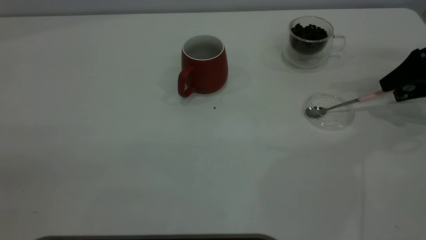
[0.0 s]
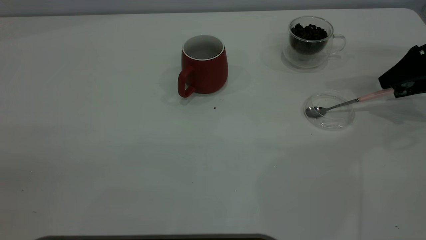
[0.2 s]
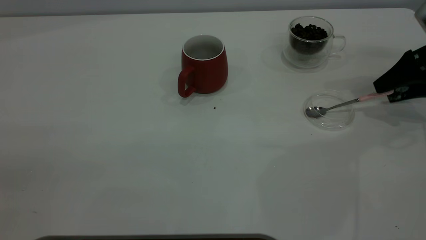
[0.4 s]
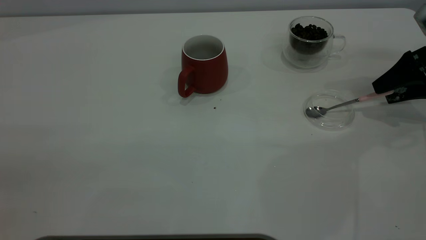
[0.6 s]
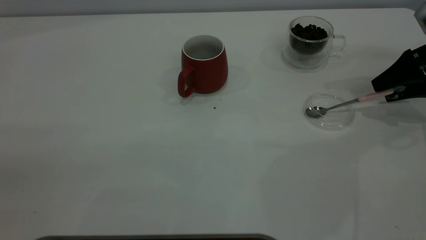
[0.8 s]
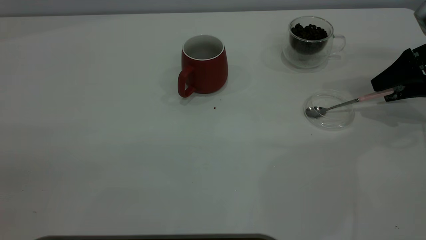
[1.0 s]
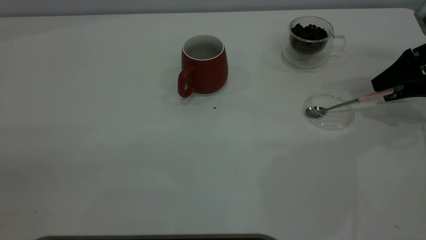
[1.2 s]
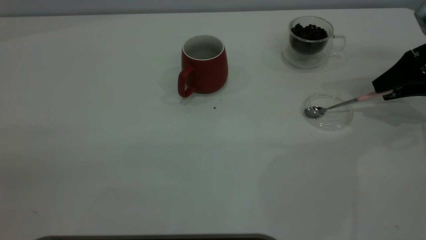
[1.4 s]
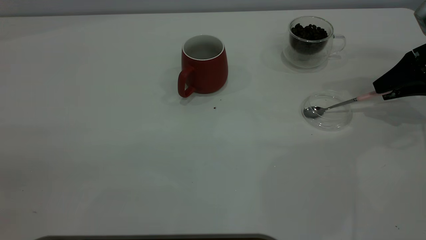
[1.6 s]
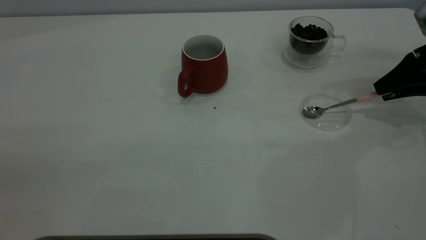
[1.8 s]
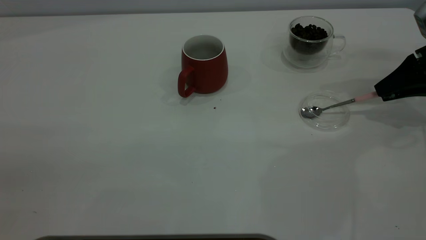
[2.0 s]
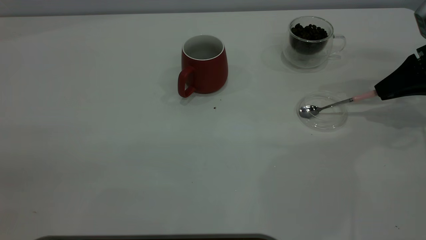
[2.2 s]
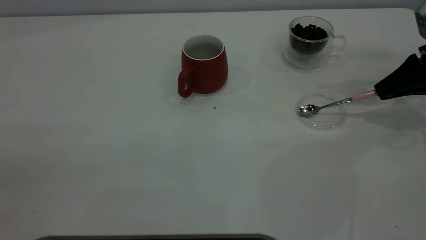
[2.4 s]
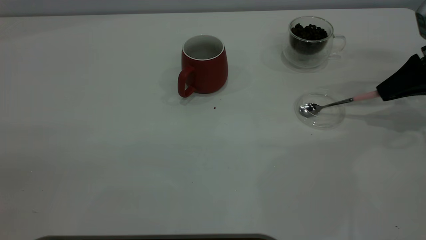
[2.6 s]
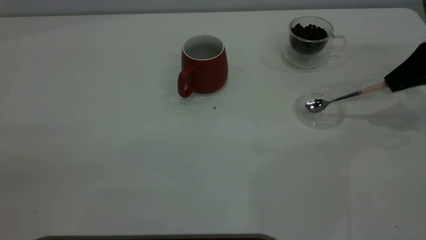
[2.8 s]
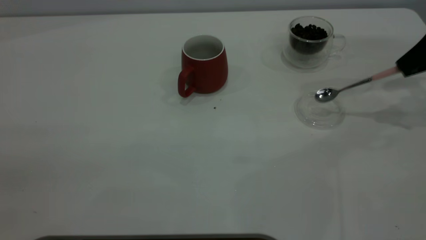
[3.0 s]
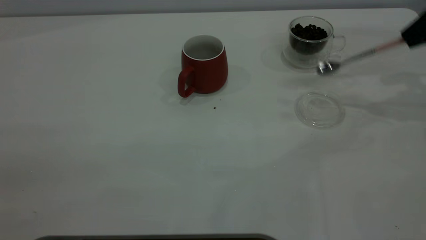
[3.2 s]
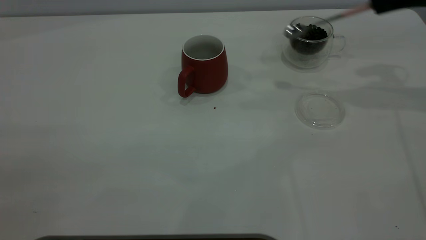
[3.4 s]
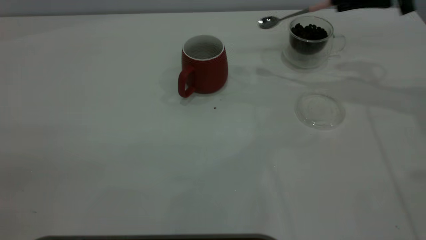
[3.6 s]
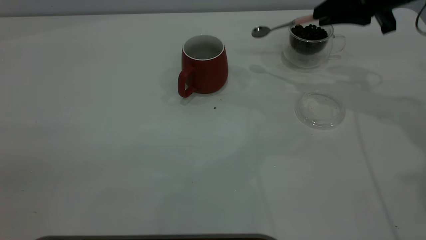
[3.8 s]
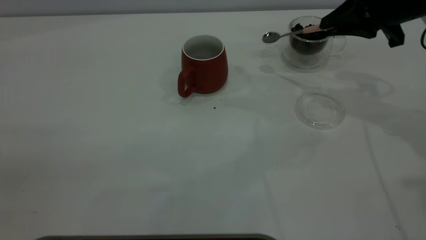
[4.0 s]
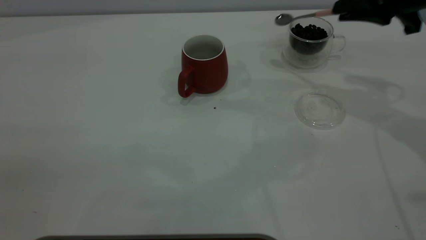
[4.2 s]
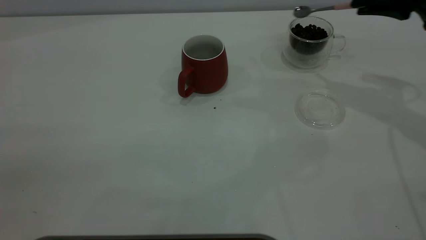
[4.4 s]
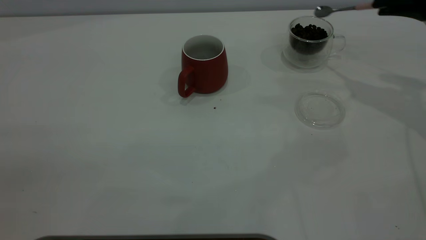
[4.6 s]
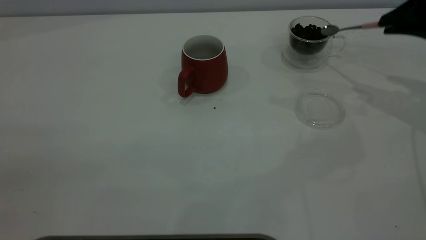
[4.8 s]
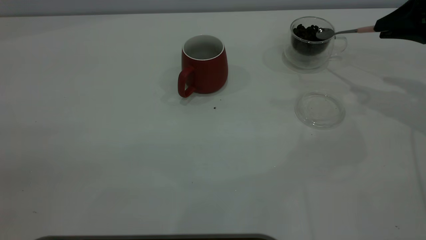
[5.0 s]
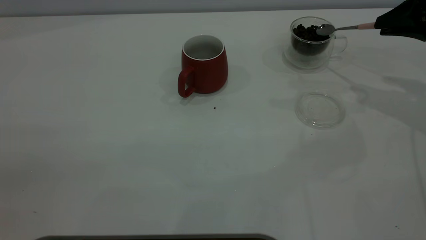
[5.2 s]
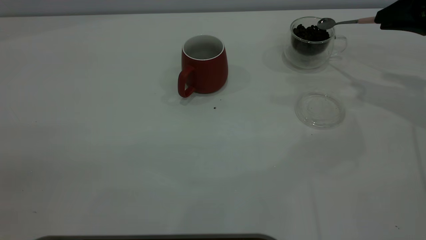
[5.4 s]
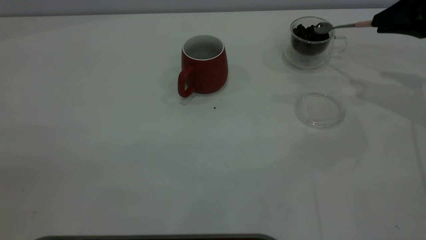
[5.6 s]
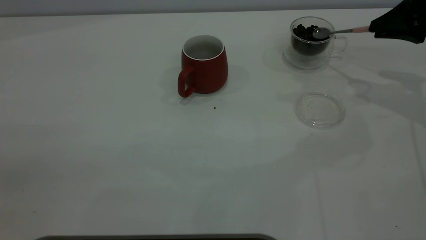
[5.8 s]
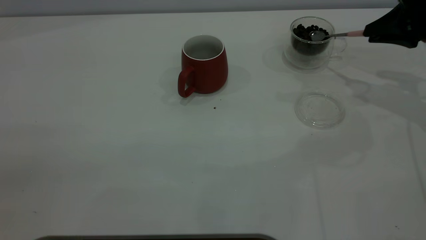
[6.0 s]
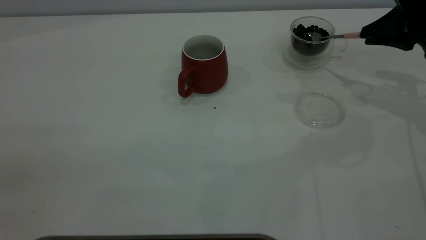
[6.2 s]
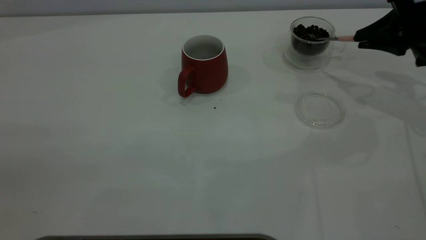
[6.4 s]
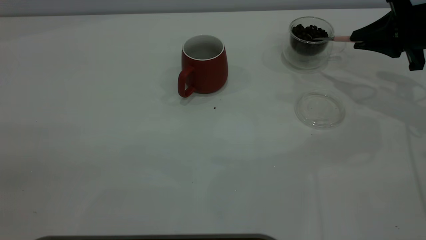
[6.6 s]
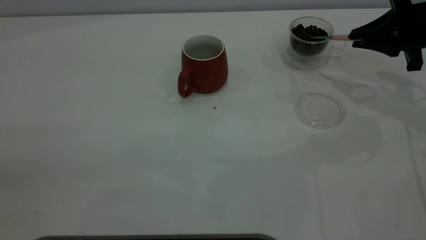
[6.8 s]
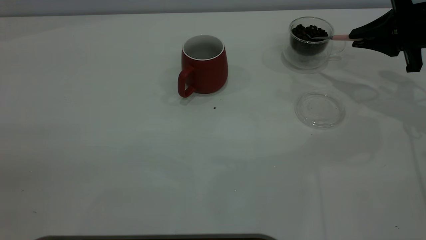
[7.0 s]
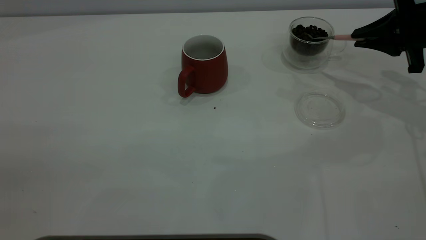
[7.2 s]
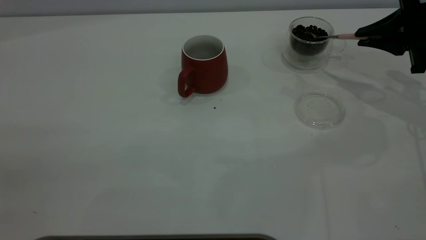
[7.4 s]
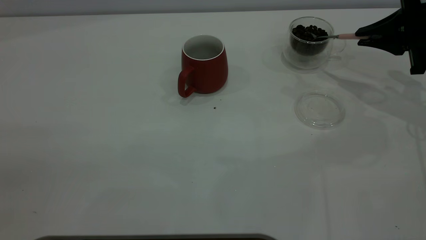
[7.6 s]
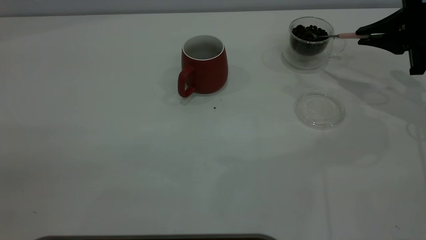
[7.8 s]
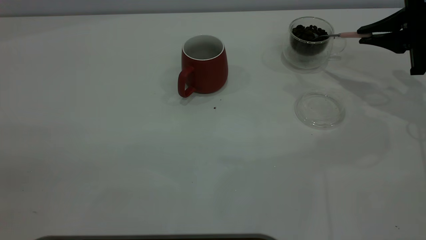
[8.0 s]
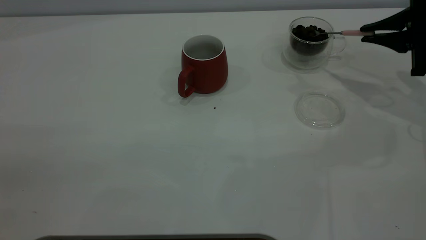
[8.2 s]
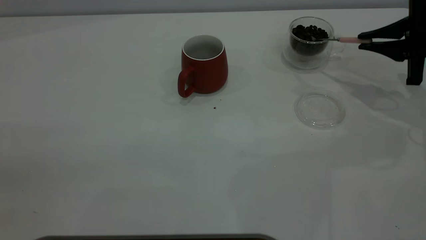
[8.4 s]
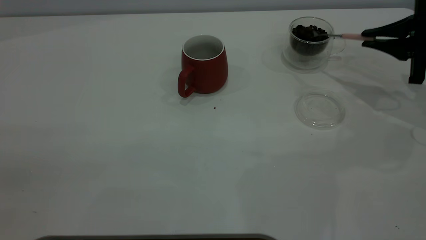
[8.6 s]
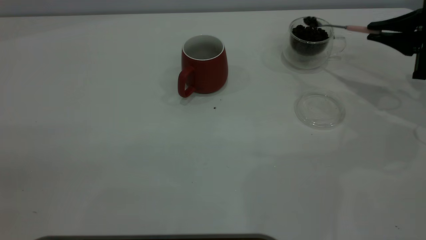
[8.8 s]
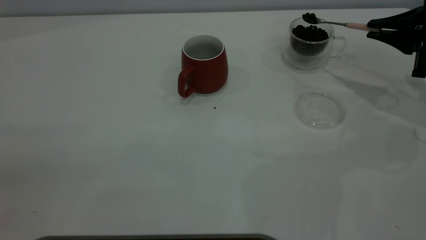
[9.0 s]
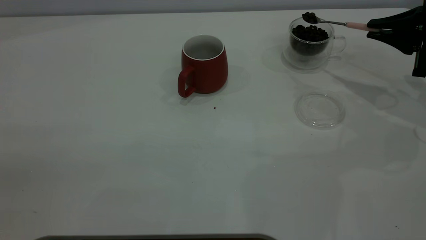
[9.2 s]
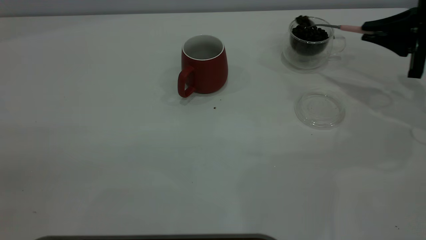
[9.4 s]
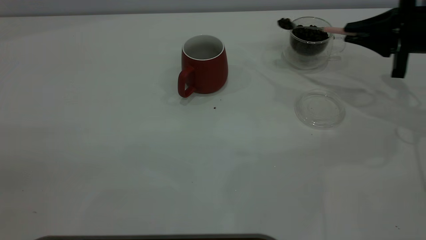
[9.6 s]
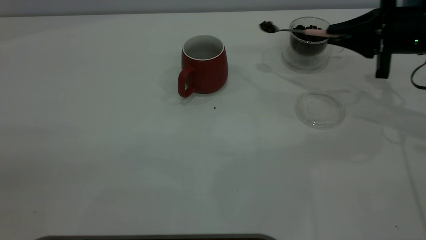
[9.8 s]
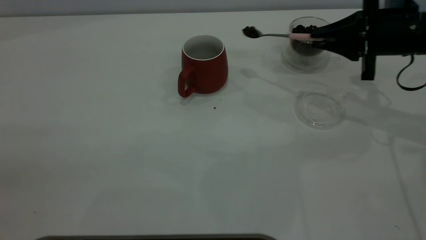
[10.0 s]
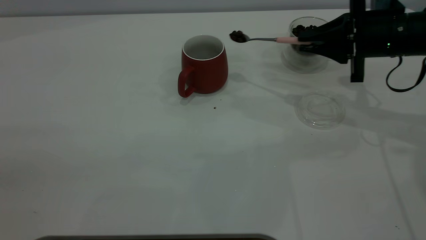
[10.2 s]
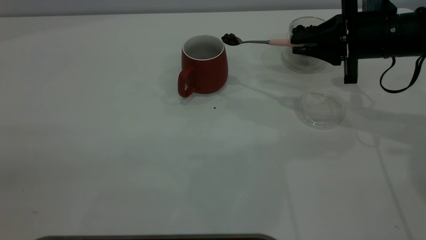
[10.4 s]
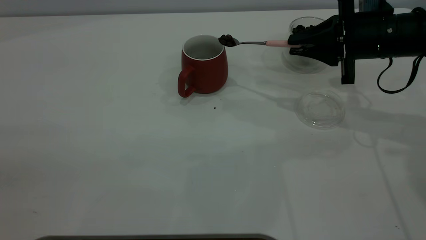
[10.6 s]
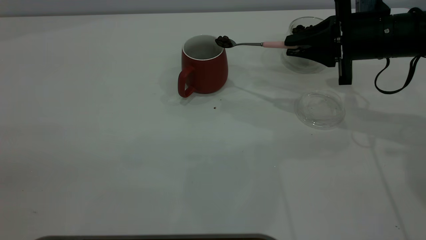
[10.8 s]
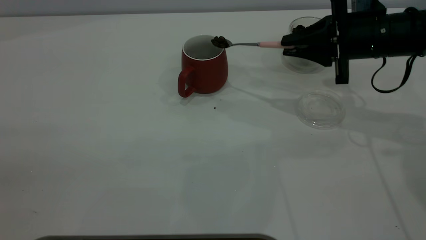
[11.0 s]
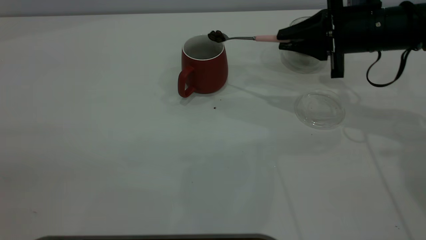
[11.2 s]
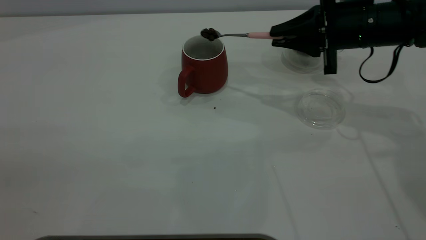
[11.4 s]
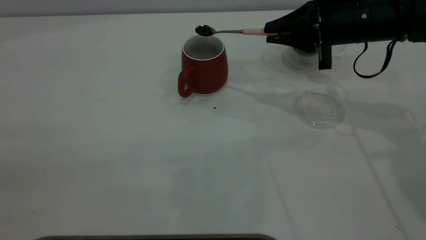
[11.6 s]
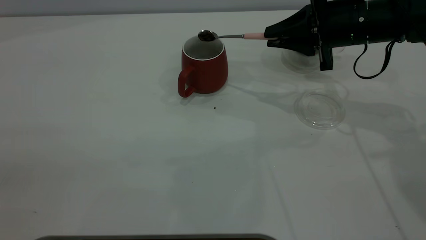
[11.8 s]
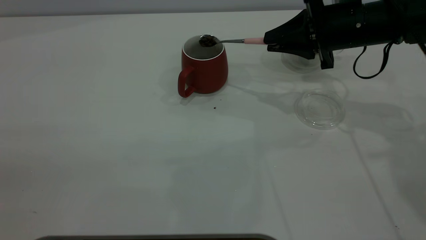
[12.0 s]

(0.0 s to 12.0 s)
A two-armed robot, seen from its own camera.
Task of the whole recording: the left gripper place the red cup in the center of the table, the right gripper take the pink spoon from the cup lid and scoop out the coffee beans from the coffee cup and put them into the red cup, the right gripper put the spoon back into the cup lid.
Step, 0.0 s - 3.0 s: Pick up the spoon.
0.0 s - 1.6 s: The right gripper closes.
1.6 s - 3.0 s: The right gripper travels upward by roughly 10 cm, and closes up.
3.0 s - 4.4 s: The right gripper shifts some 10 cm to the left.
4.4 s - 6.0 s: The right gripper shifts some 5 cm downward.
7.6 s - 9.0 s: The grippers move only a little.
9.0 s - 10.4 s: The right gripper is displaced to the left by roughly 10 cm.

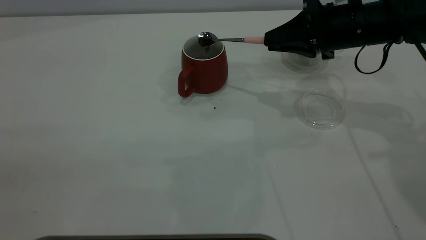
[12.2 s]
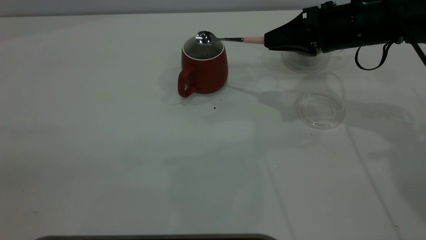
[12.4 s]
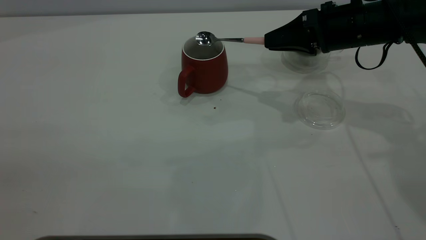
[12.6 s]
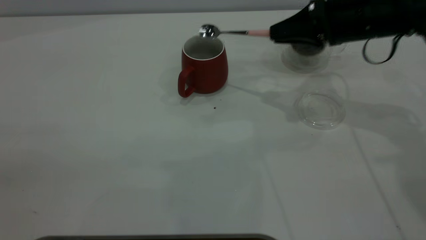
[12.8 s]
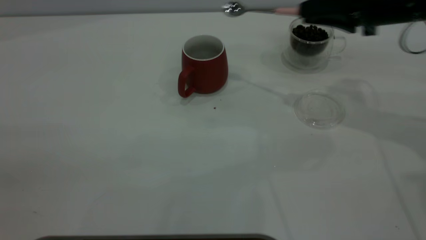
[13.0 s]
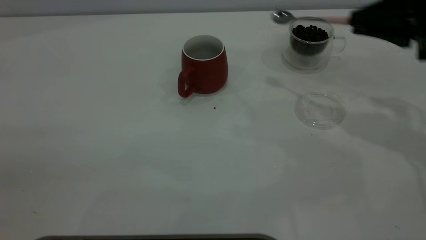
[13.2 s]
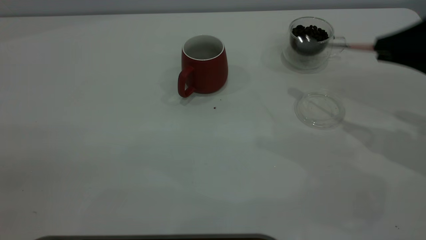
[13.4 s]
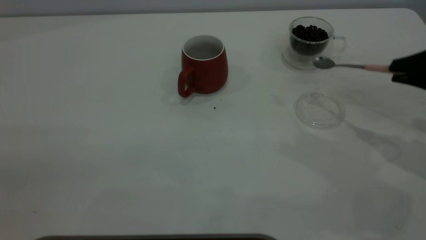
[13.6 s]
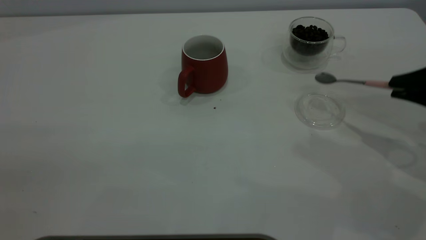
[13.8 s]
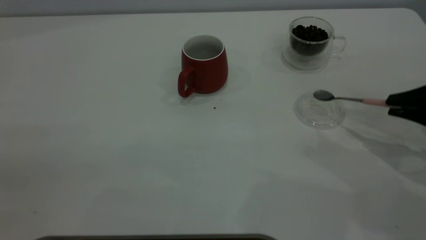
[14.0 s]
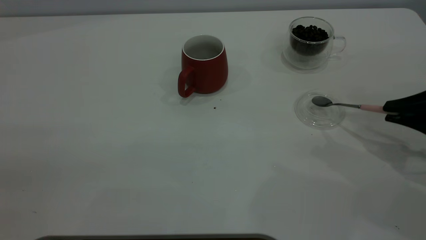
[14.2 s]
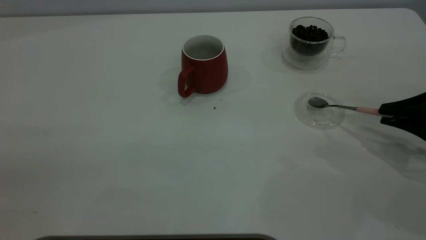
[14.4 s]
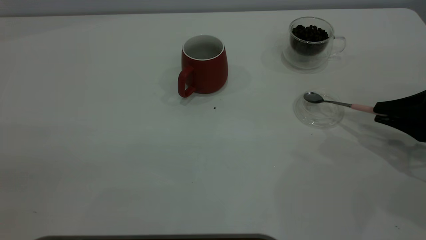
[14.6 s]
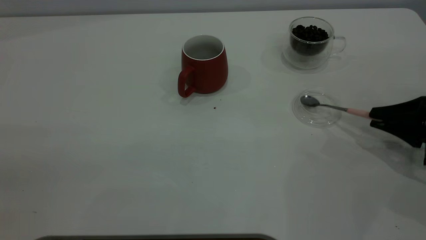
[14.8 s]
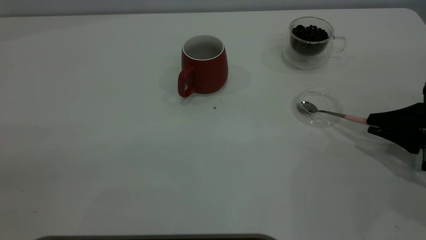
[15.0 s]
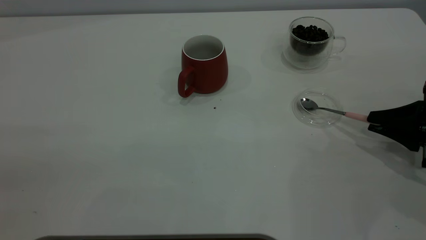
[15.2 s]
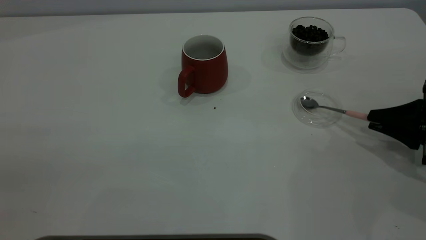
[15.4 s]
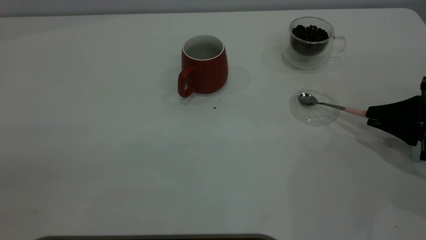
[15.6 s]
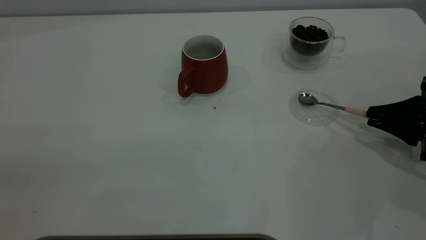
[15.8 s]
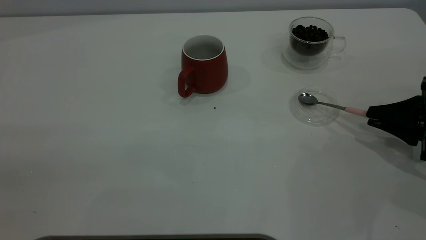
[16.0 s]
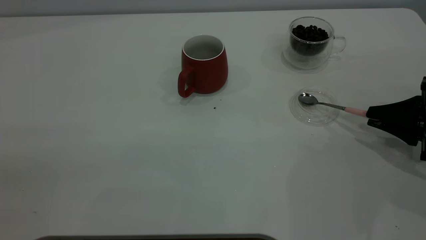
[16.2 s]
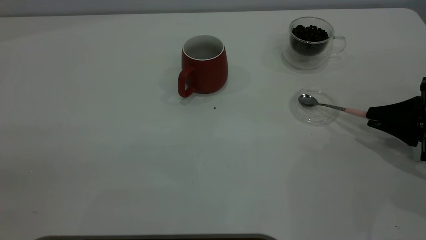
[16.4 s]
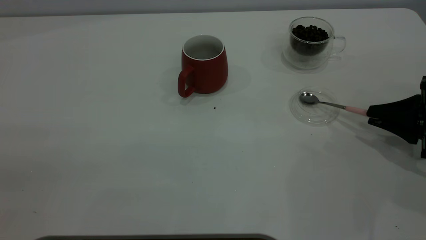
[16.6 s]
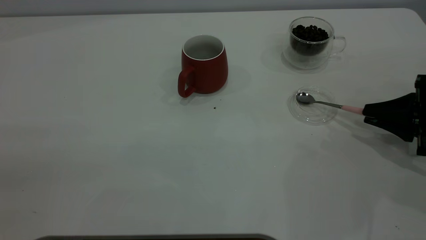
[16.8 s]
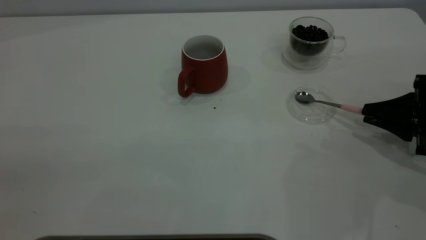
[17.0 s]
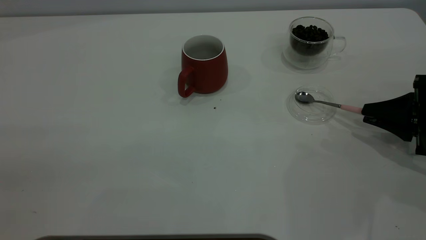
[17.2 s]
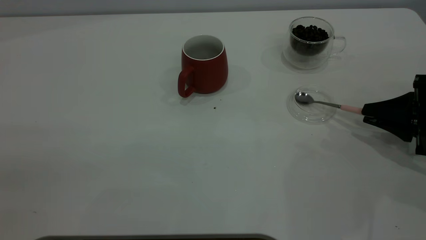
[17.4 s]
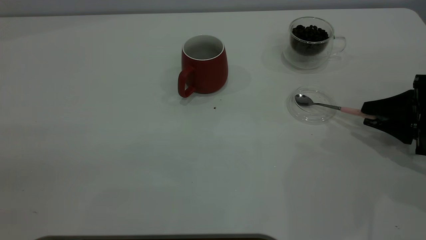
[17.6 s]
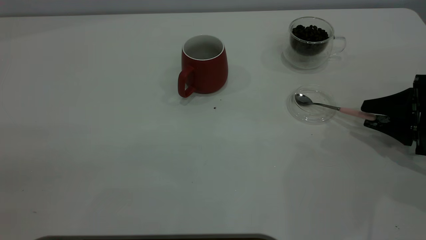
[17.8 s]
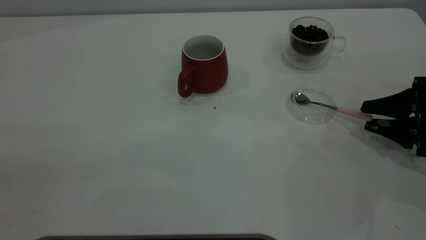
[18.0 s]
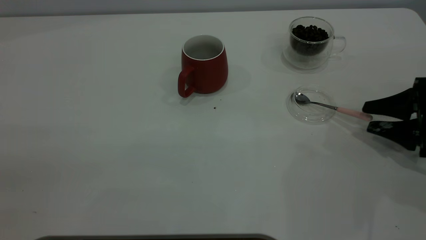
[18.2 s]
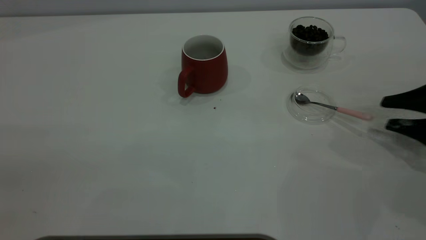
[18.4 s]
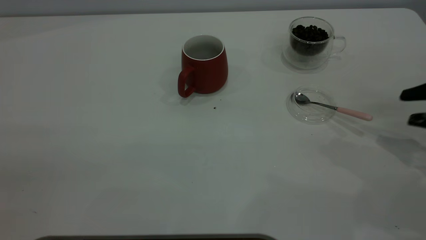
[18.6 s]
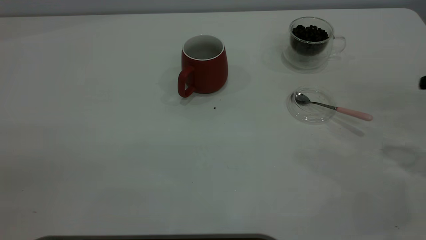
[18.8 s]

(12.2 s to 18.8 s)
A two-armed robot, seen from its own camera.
Task of the whole recording: the left gripper place the red cup in the center of the table, the right gripper take the pink spoon from the cup lid and scoop out the coffee beans from the coffee cup and put them into the red cup, the right gripper put the spoon back into the cup lid.
Step, 13.0 s - 18.2 s: Place the spoon back in its original place.
12.2 s - 13.8 s: The right gripper goes about 20 cm backward and to the right.
13.8 s - 15.4 s: The right gripper shifts roughly 10 cm downward.
15.4 s - 17.2 s: The grippers make only small movements.
17.2 s - 18.8 s: The right gripper travels upward by about 15 cm, and opens.
